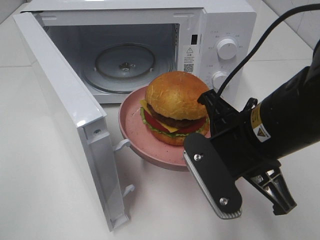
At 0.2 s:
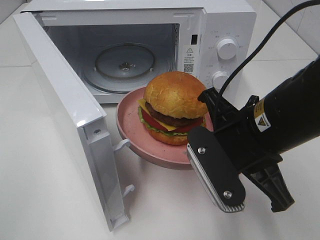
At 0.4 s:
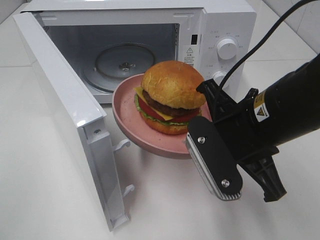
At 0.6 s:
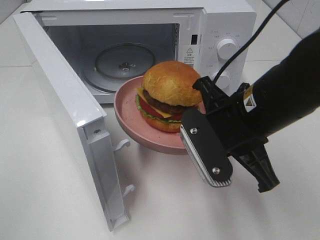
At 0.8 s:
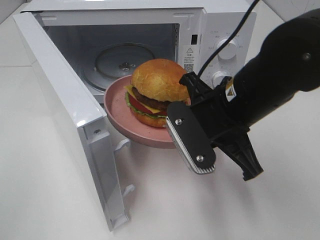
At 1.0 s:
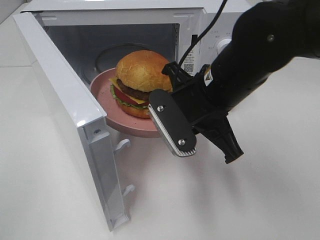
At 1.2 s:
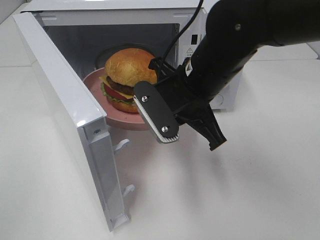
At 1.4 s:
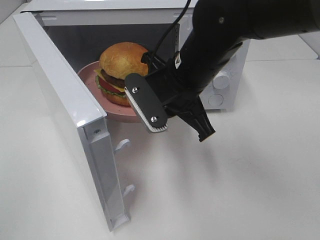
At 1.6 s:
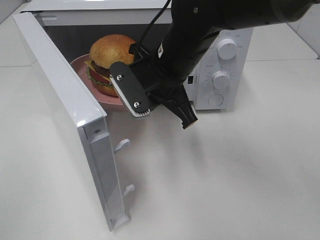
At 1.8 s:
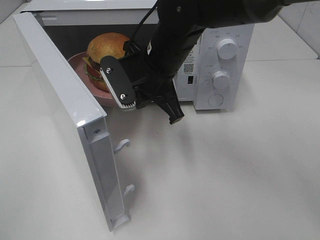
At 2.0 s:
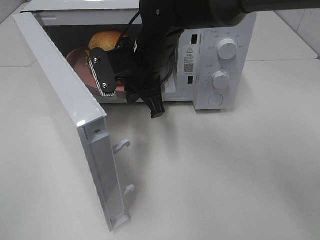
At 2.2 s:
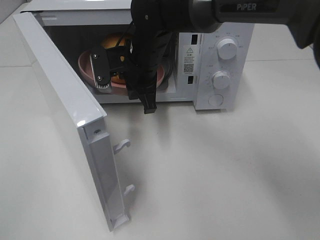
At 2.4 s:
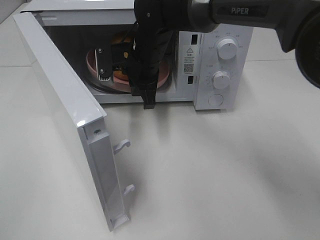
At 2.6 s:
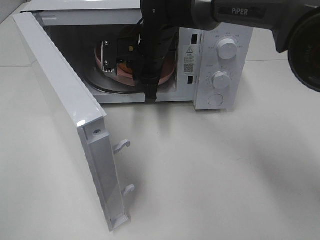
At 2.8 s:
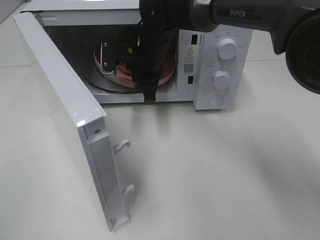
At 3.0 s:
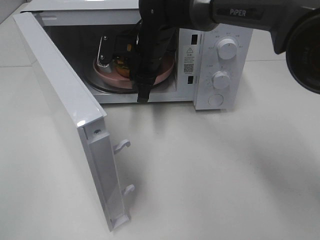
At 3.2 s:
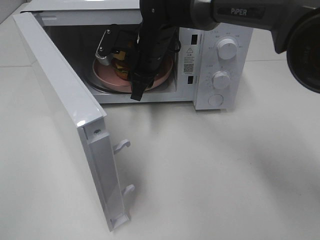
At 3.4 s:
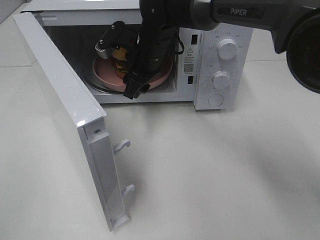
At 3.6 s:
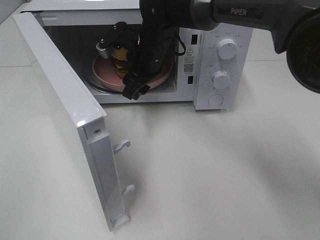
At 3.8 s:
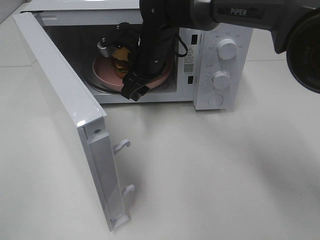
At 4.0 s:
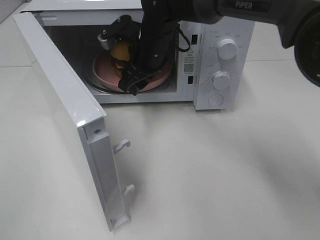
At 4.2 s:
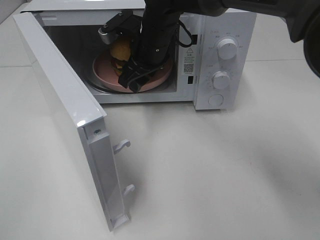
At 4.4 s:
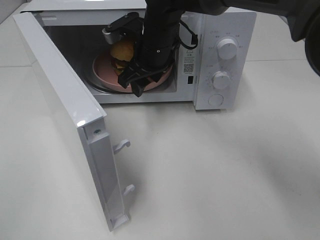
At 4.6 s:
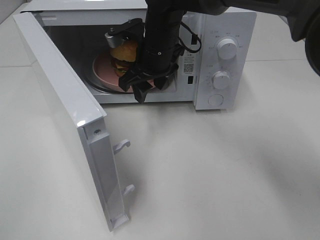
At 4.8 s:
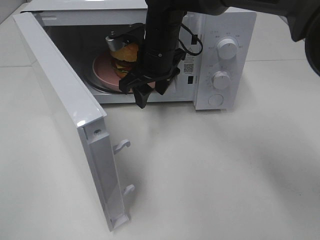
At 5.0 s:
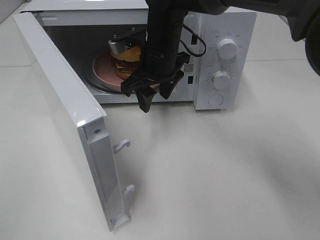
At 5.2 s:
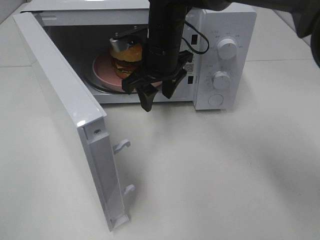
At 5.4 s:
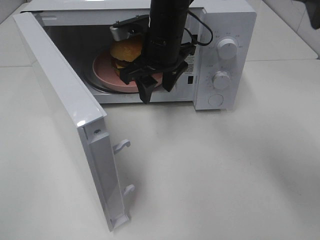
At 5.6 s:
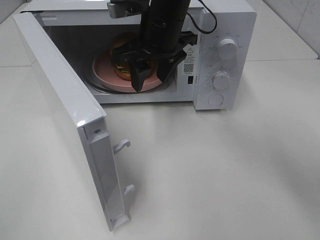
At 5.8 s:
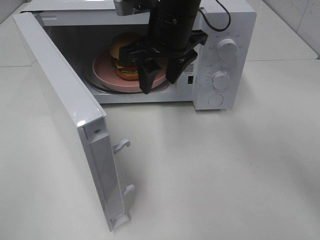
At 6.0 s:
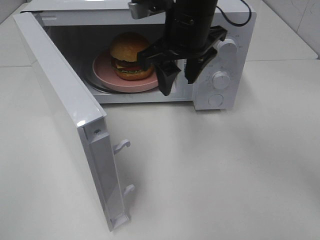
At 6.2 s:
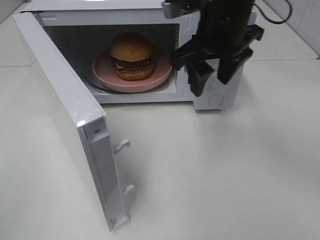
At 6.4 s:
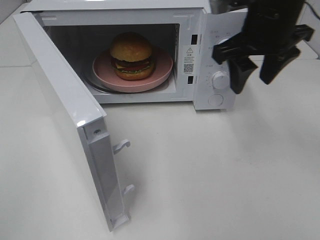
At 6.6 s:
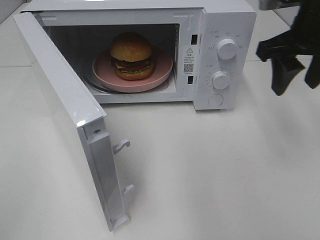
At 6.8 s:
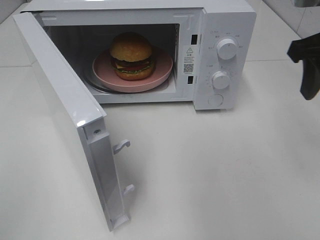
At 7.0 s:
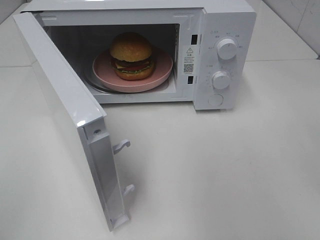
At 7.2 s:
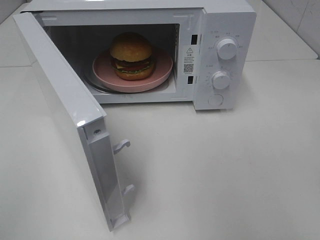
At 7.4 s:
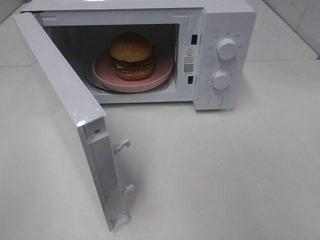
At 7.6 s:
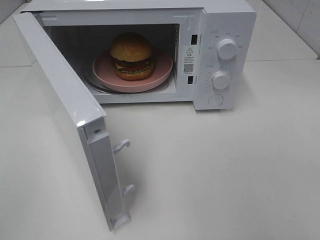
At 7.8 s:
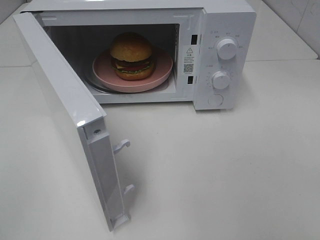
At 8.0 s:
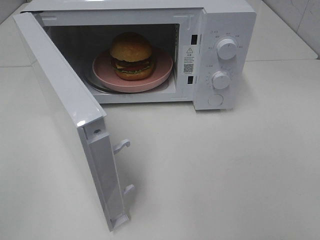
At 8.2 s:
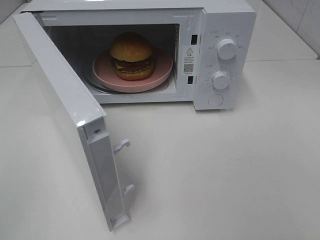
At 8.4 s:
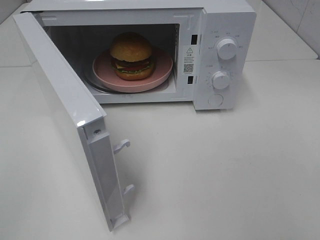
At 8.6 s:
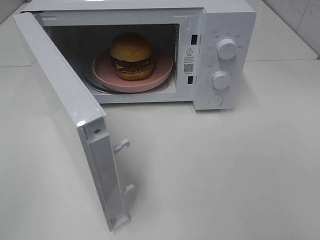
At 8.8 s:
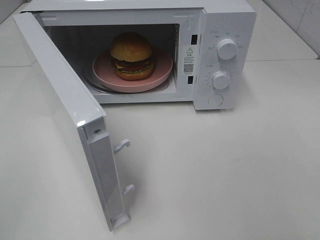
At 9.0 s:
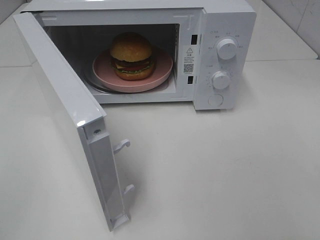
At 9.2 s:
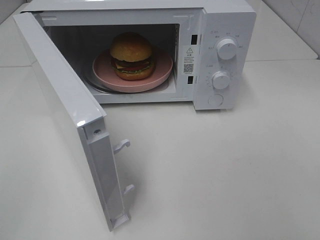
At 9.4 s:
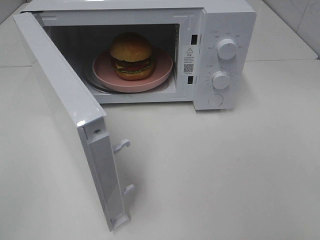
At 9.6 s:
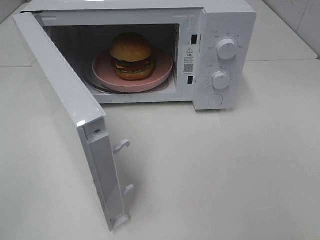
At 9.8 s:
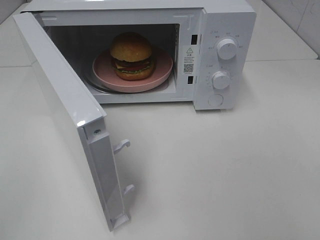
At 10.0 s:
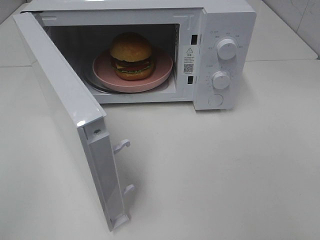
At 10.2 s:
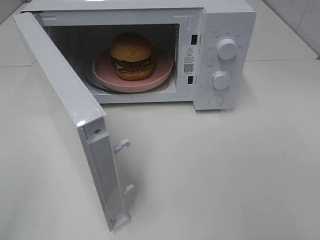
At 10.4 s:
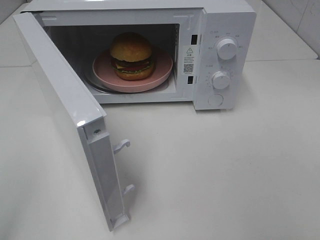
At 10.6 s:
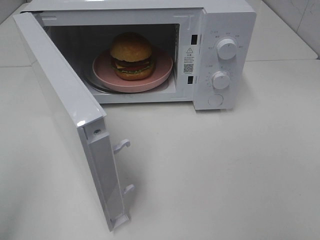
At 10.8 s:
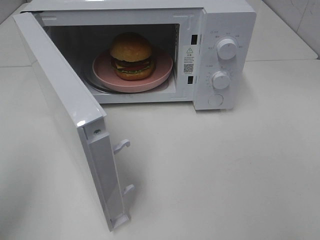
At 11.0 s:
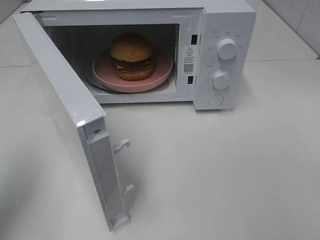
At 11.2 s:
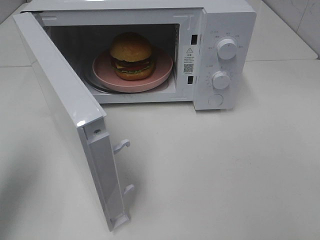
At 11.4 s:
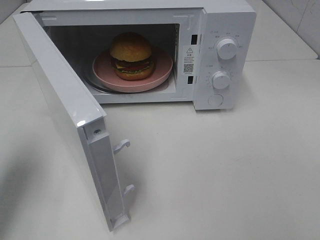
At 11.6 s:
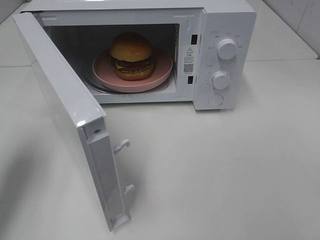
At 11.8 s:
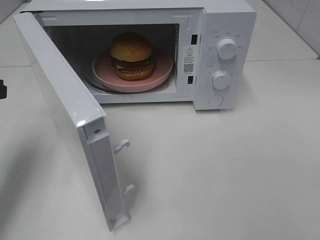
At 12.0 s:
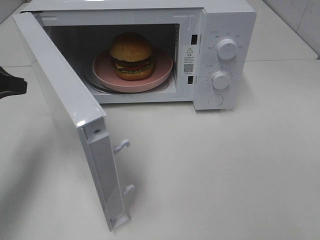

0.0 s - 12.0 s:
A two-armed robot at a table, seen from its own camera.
Task of the whole recording: Heat the burger.
Step, 0.0 s - 3.4 s: Right hand: place the plate in the microwave.
0.0 s - 1.6 s: The right gripper shifts about 15 cm forward and to the left.
1.6 s - 3.0 s: The right gripper is displaced forward by about 10 cm.
3.0 s - 4.4 s: The right gripper opens.
4.4 s - 6.0 s: The right gripper goes roughly 10 cm upward, backward and to the right.
6.0 s - 7.6 s: The right gripper is displaced backward and to the right by roughly 35 cm.
10.4 s - 12.0 s: The left gripper shifts approximately 25 cm forward.

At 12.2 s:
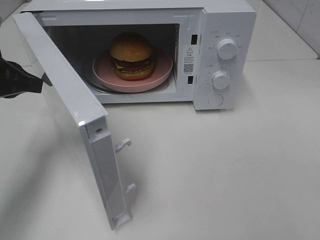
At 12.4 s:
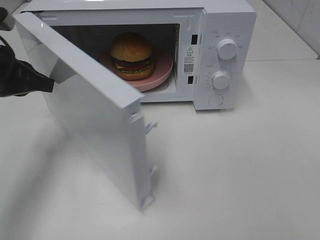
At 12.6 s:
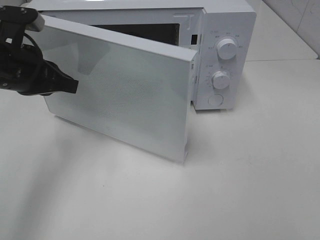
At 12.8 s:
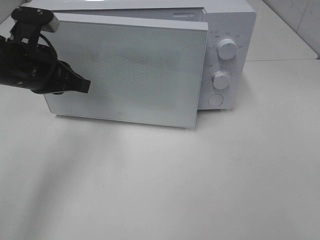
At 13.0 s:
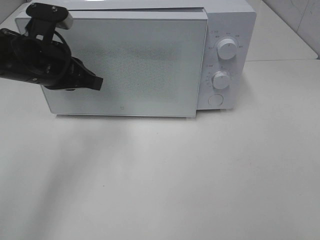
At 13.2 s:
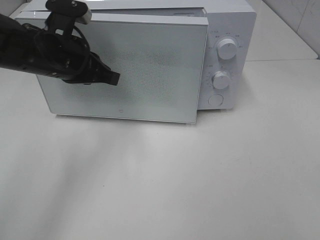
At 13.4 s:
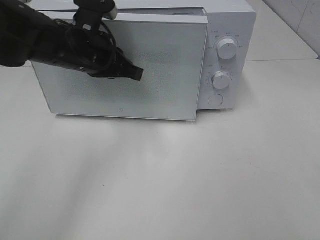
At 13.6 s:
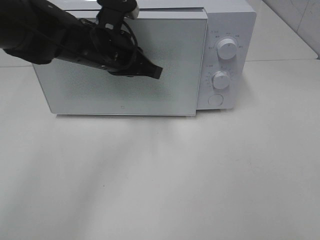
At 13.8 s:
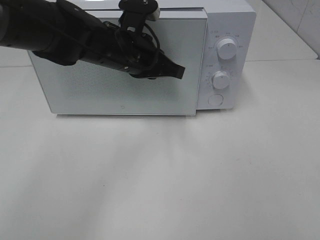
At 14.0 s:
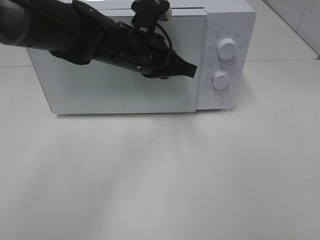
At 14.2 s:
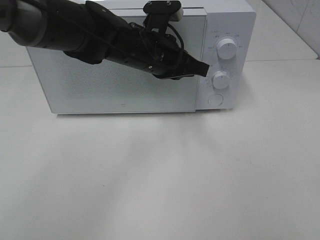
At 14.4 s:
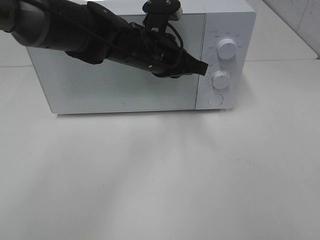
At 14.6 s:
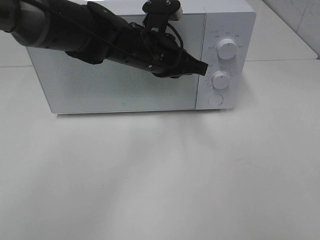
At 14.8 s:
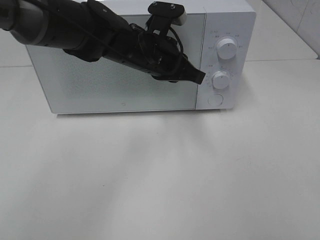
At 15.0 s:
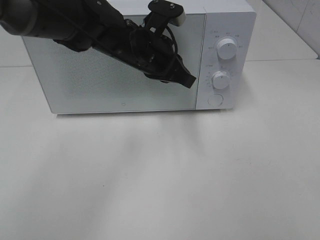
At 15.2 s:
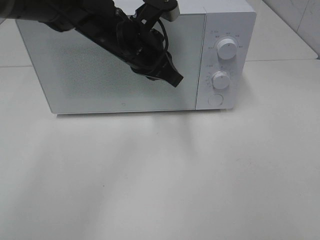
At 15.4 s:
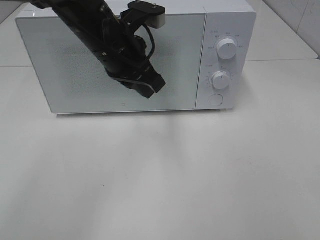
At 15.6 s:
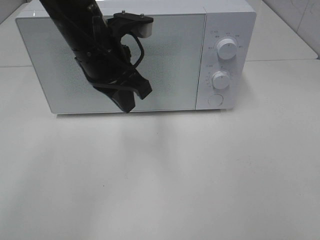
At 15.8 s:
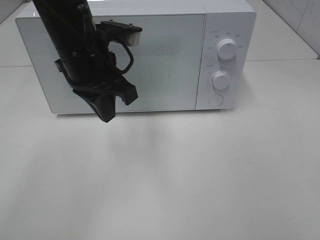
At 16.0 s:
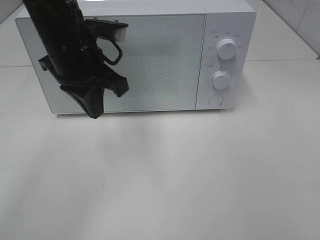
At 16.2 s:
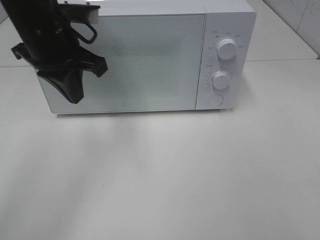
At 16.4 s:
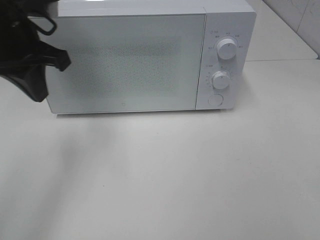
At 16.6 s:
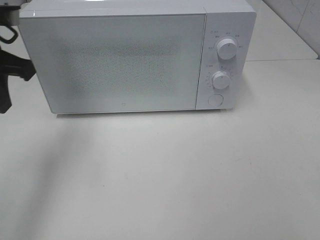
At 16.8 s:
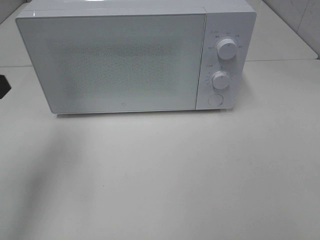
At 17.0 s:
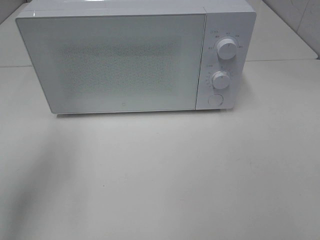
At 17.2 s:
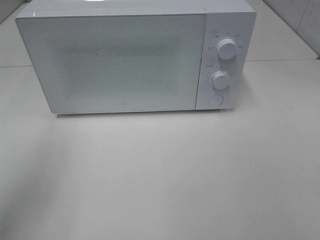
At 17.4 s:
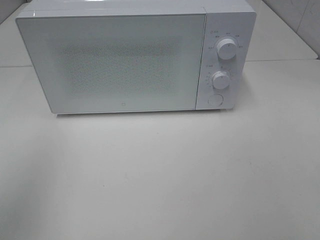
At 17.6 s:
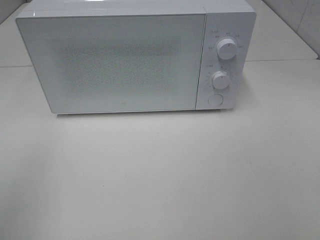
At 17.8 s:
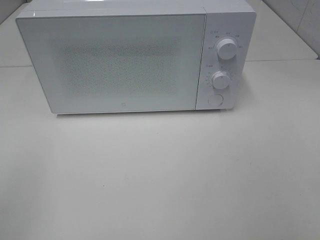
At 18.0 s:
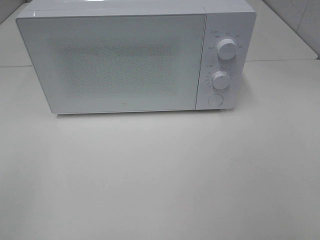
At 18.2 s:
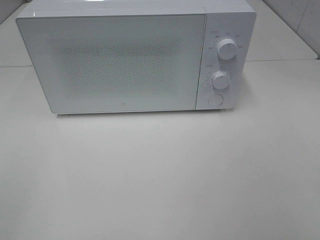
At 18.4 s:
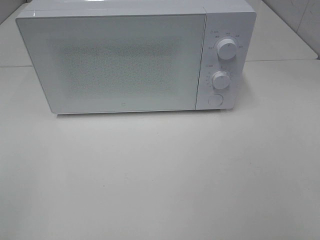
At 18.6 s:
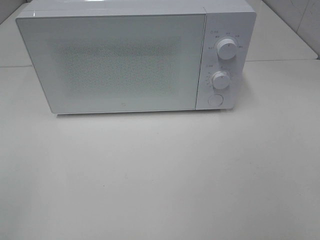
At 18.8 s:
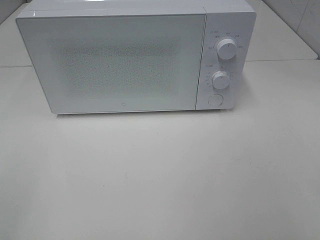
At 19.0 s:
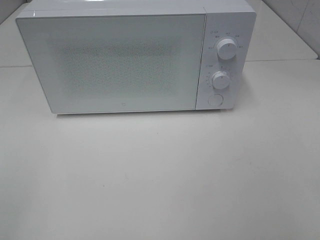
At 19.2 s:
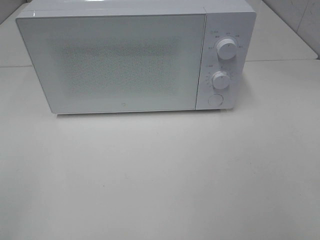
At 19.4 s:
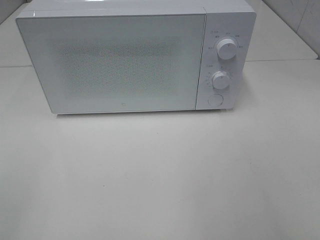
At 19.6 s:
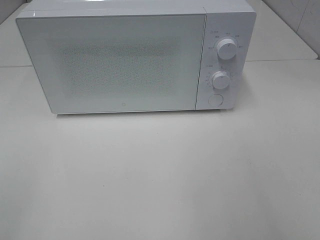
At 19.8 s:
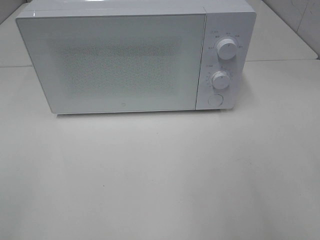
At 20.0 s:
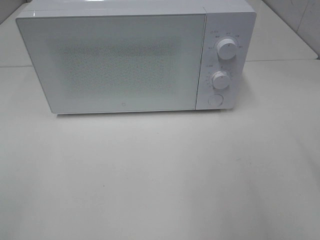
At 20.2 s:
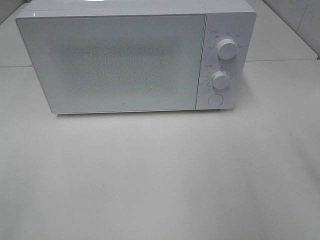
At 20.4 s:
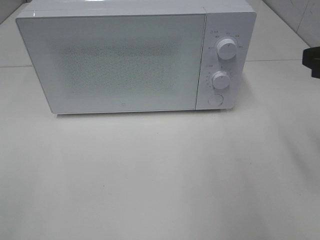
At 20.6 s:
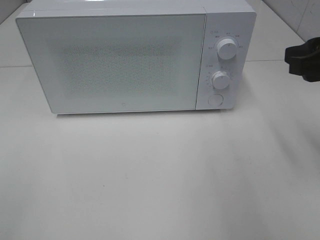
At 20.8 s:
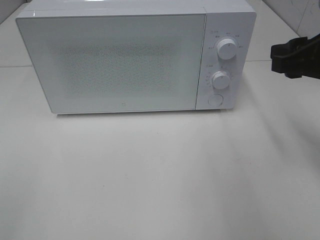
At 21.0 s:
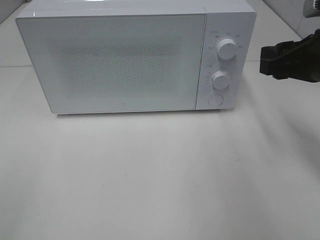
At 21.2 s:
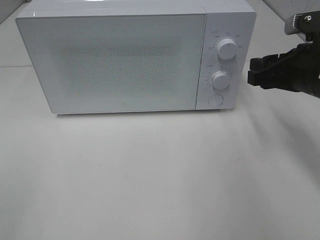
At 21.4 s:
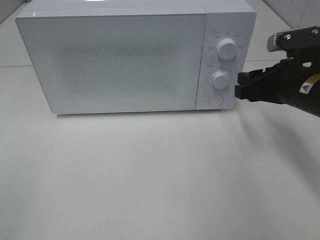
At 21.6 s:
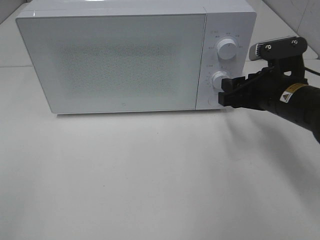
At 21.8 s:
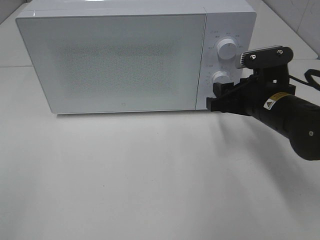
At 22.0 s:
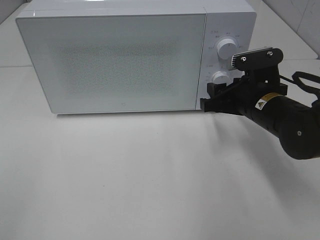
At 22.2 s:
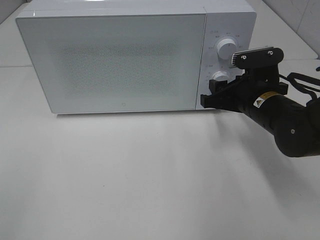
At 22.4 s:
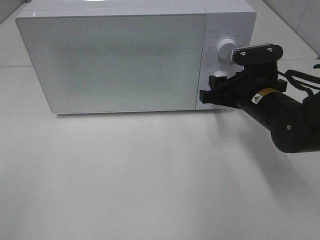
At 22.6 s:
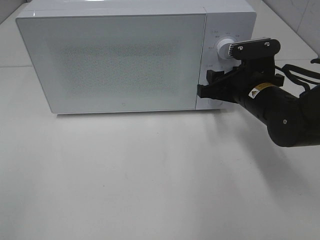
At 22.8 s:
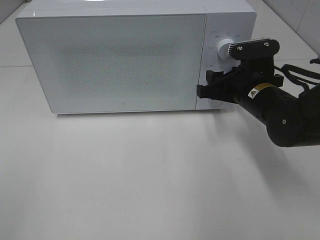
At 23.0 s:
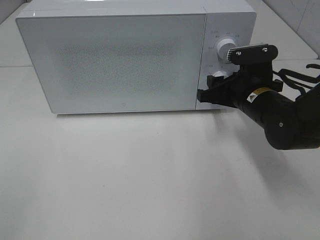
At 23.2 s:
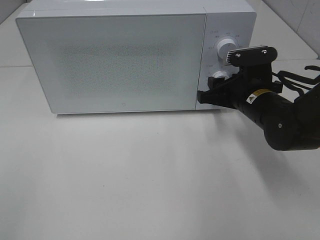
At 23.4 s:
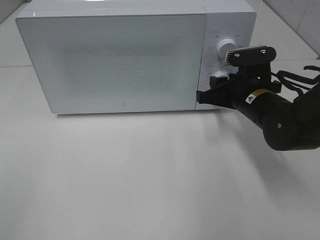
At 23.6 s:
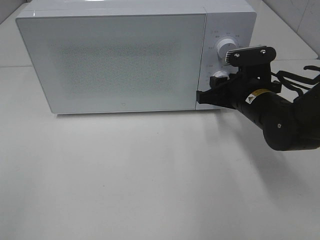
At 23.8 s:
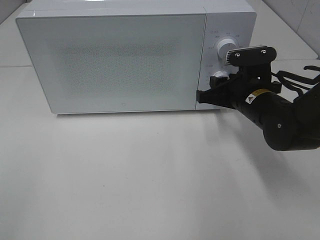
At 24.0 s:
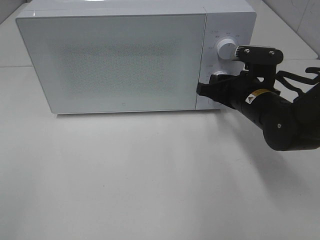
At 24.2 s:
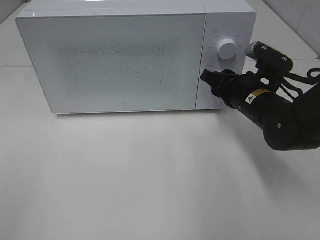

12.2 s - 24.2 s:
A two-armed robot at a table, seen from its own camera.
Task of the whole recording: Heat the burger.
Step, 12.2 s - 14.6 s: Left hand: close the microwave door.
12.2 s - 13.8 s: The left gripper goes roughly 20 cm to the right.
15.2 s - 16.6 s: The left gripper is displaced to the left by approximately 20 cm.
16.6 s - 18.2 s: The left gripper shifts about 30 cm backward.
19.8 s - 21.2 s: The right gripper is displaced forward and downward by about 25 cm.
21.2 s - 22.6 s: The right gripper moves to the left and downward, about 10 cm.
